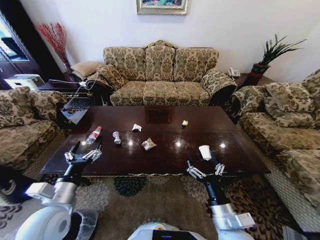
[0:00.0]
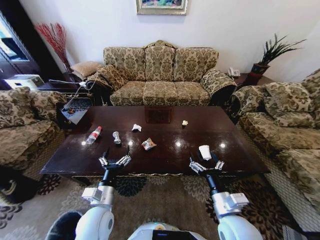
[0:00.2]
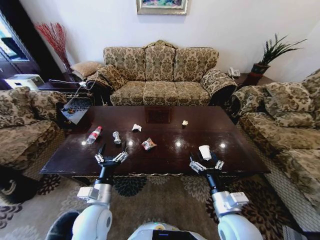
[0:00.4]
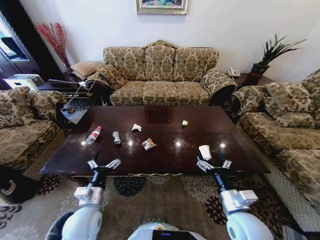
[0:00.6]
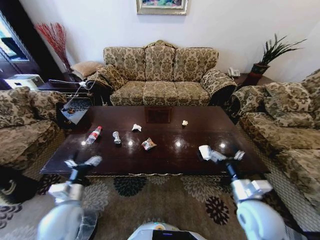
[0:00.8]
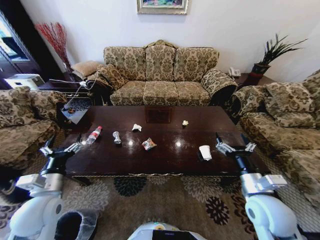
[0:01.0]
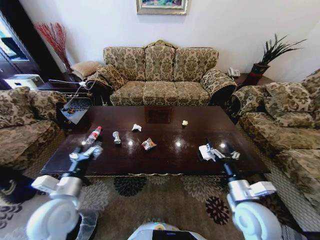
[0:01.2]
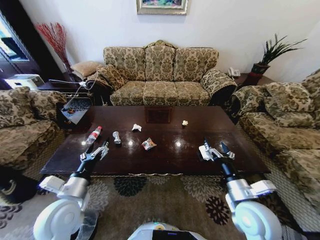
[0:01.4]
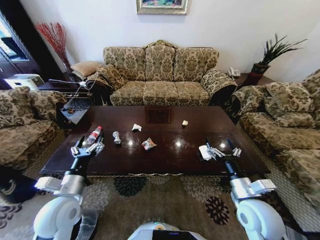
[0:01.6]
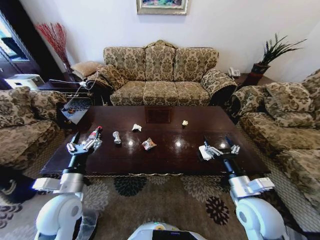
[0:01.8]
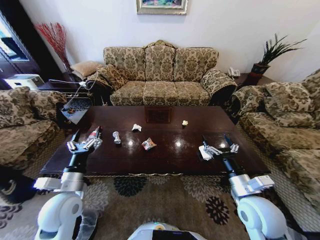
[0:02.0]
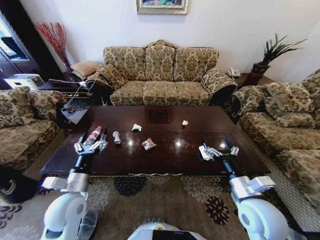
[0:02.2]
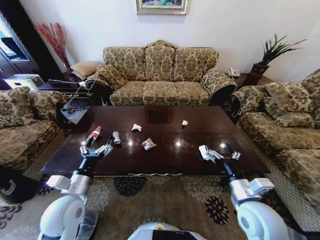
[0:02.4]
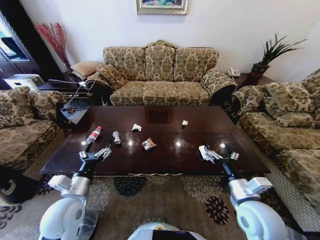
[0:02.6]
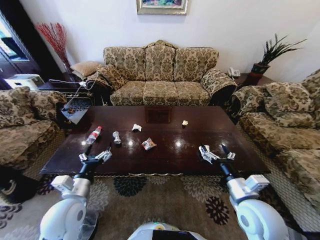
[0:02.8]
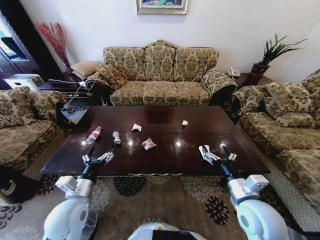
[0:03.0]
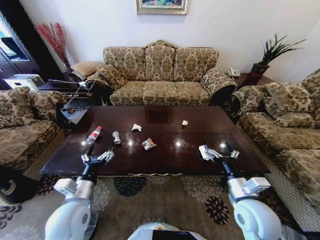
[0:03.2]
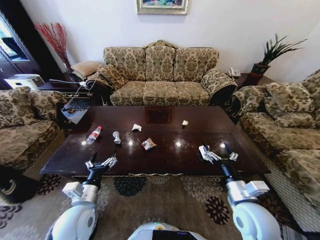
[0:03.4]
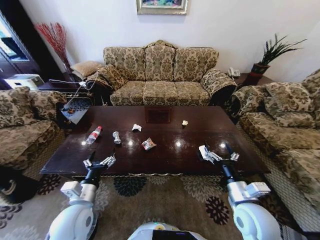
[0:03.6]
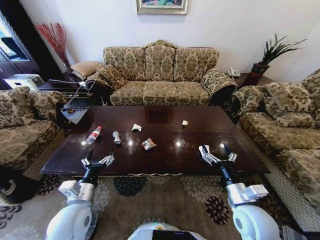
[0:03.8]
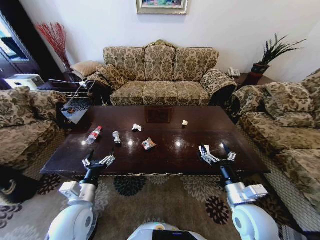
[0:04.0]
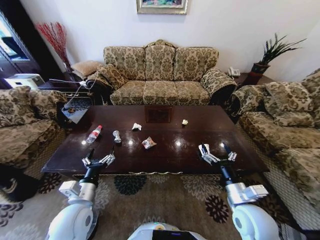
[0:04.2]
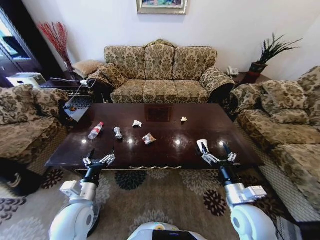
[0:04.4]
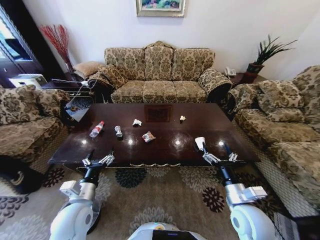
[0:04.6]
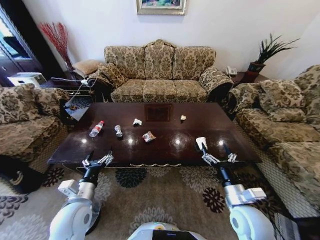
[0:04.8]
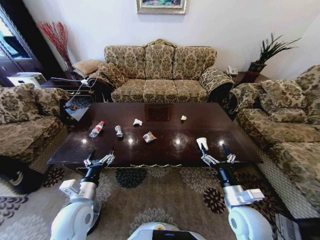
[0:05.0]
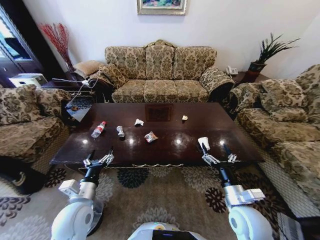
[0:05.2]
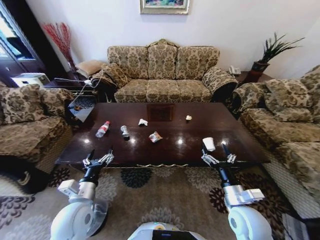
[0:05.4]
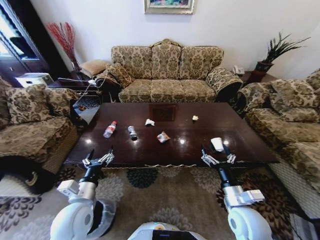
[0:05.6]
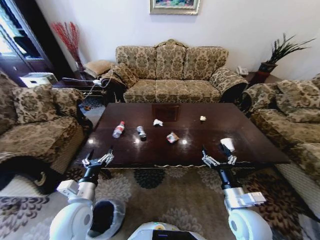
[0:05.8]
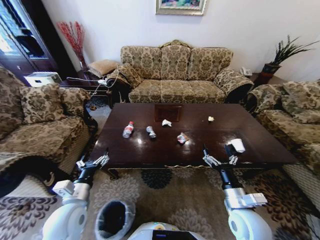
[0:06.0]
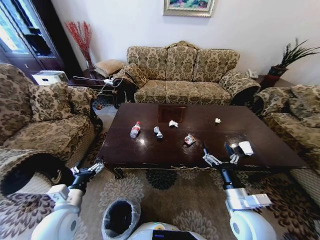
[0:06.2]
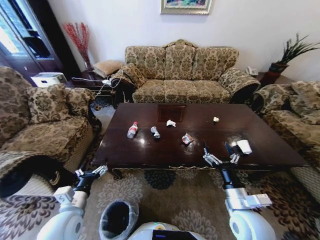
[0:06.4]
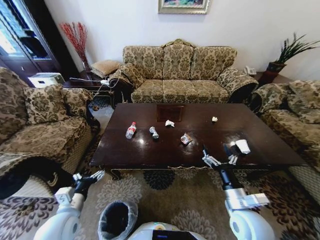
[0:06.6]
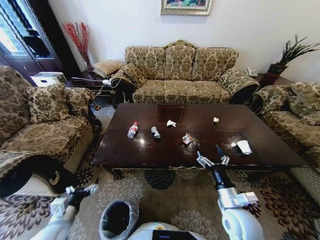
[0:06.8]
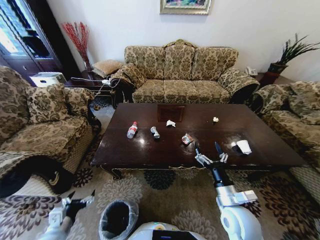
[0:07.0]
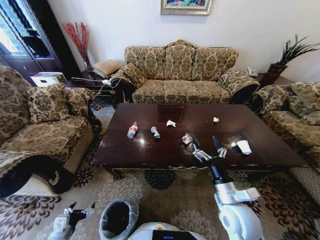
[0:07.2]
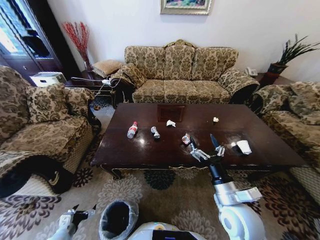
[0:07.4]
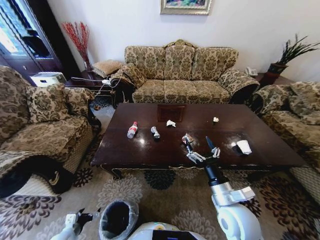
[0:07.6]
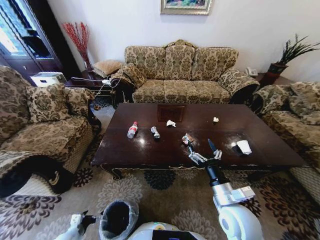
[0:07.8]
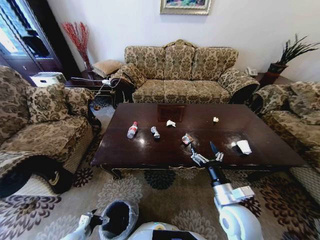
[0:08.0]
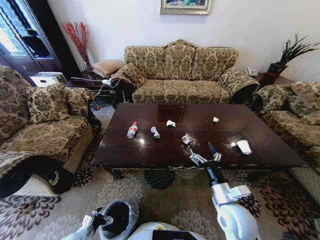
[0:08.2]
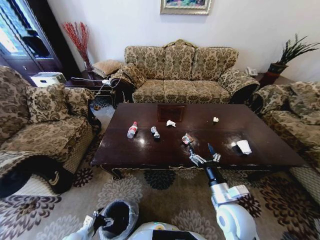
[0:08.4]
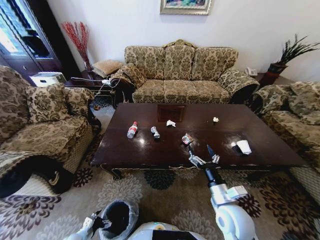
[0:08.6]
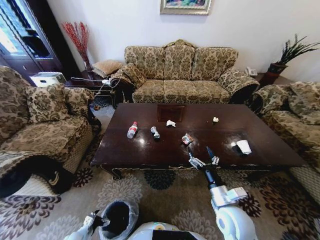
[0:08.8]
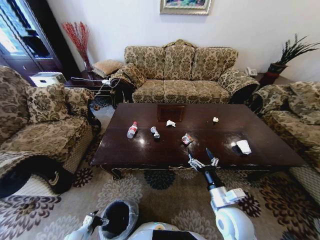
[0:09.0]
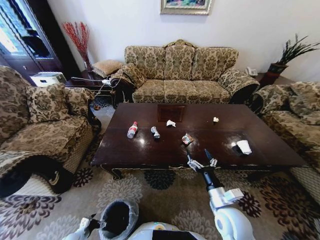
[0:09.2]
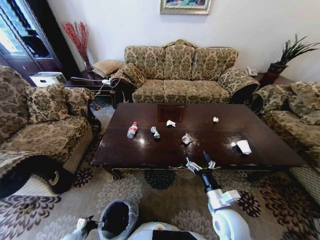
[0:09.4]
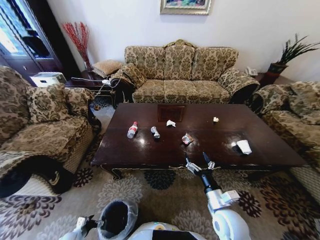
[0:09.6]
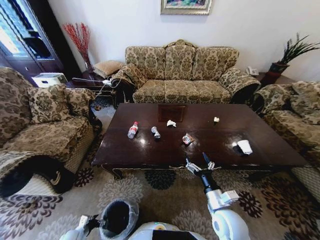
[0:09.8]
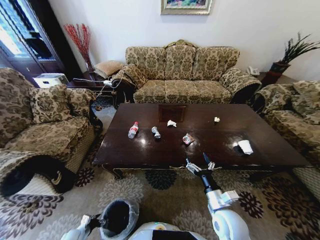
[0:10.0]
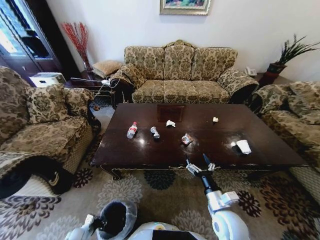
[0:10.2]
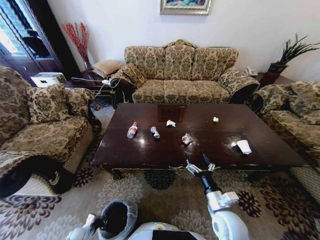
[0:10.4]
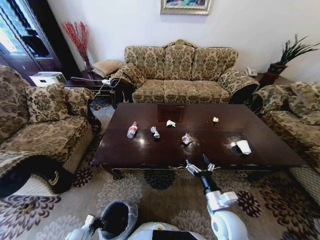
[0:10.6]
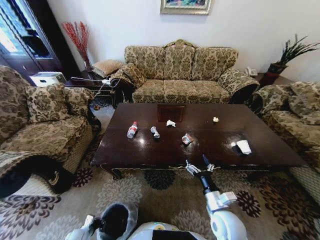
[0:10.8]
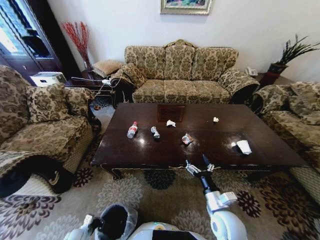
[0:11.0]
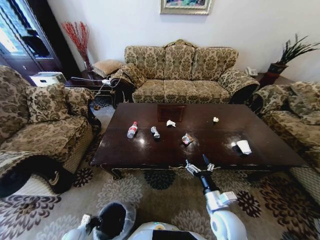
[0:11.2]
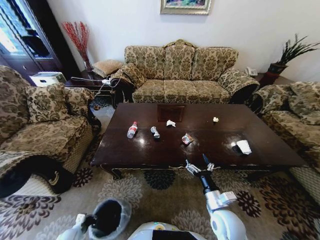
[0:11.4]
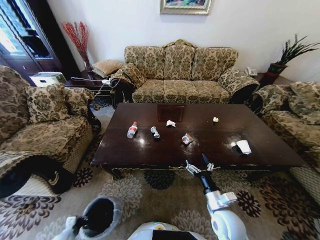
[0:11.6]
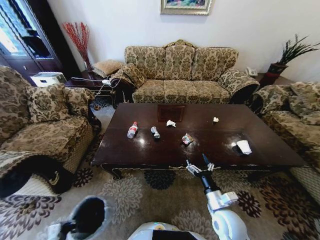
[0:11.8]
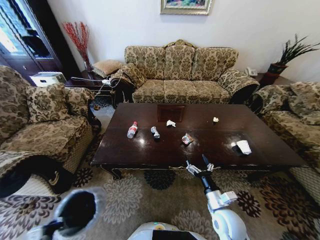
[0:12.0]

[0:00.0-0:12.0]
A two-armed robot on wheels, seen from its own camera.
Task of the whole recording: Move to the front of the table and place the trash on the table into the trash bin.
0:01.6 to 0:03.0: The grippers make only small movements.
0:06.0 to 0:07.6: The right gripper moves about 5 cm; the left gripper is displaced downward and to the left by roughly 25 cm.
0:07.6 to 0:09.0: The left gripper moves downward, roughly 15 cm.
0:09.0 to 0:10.4: The left gripper closes its fingers.
0:10.4 to 0:12.0: The left gripper is displaced upward and backward by approximately 20 cm.

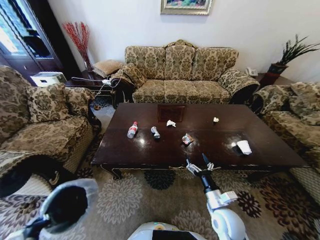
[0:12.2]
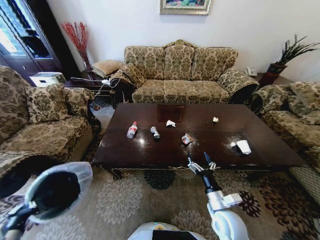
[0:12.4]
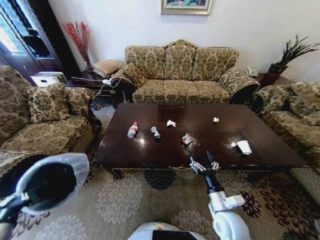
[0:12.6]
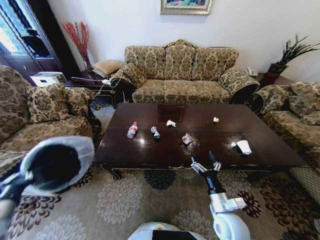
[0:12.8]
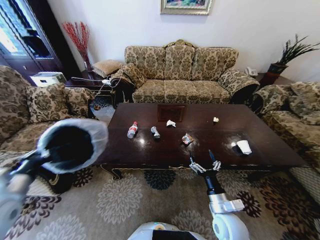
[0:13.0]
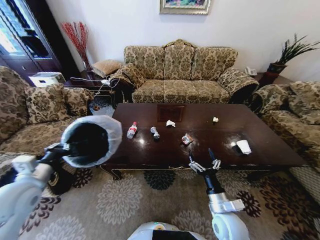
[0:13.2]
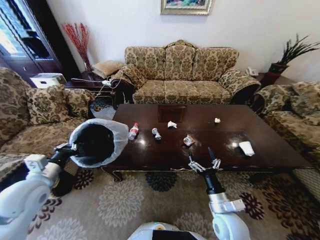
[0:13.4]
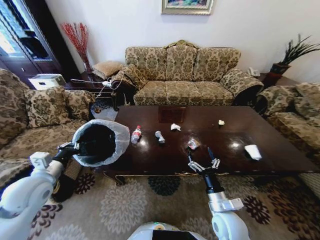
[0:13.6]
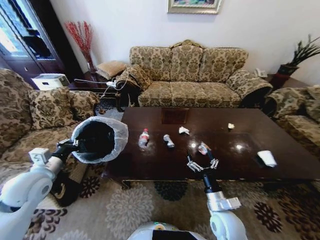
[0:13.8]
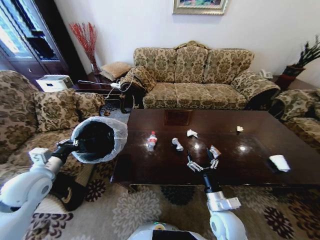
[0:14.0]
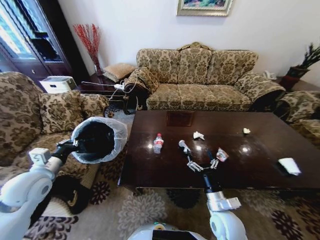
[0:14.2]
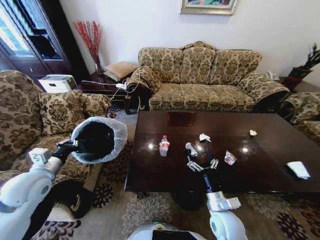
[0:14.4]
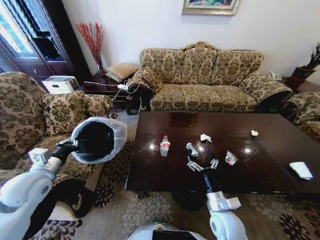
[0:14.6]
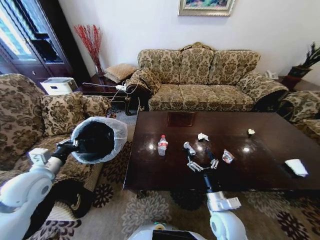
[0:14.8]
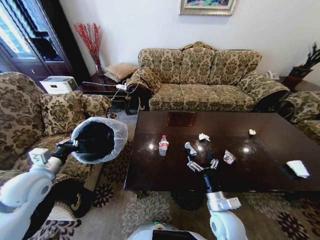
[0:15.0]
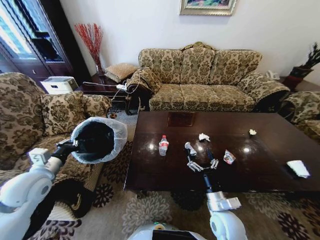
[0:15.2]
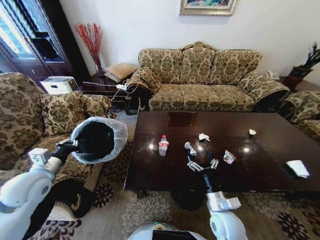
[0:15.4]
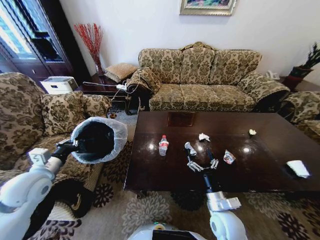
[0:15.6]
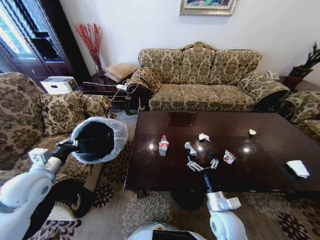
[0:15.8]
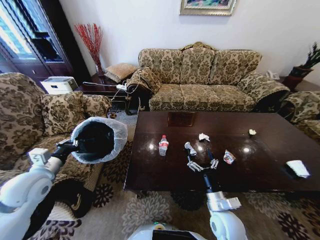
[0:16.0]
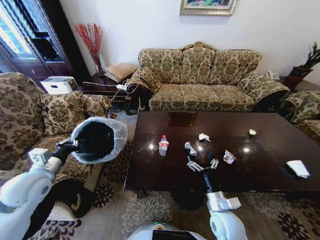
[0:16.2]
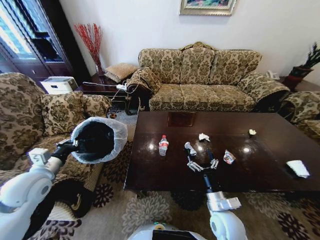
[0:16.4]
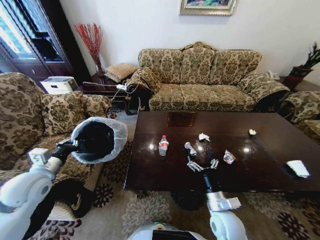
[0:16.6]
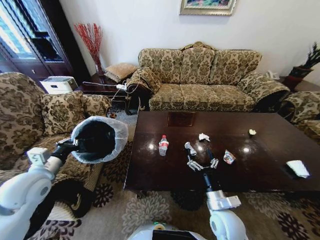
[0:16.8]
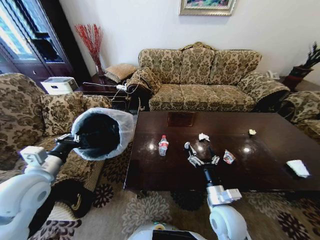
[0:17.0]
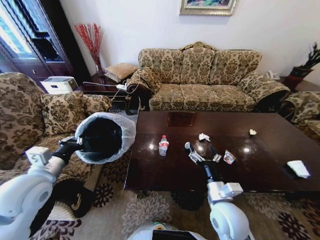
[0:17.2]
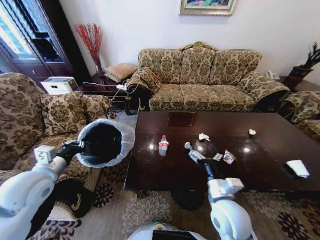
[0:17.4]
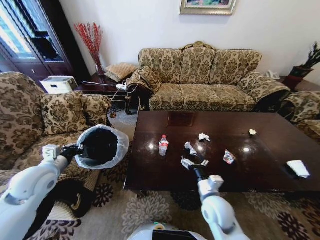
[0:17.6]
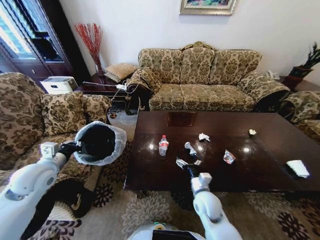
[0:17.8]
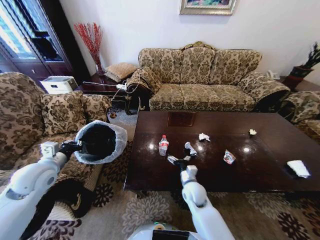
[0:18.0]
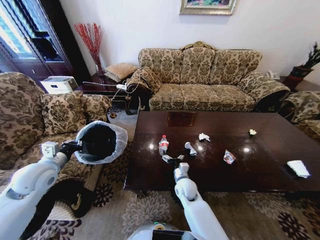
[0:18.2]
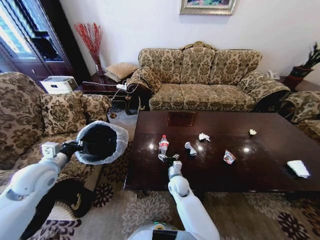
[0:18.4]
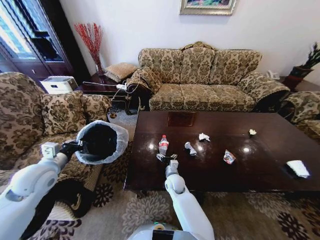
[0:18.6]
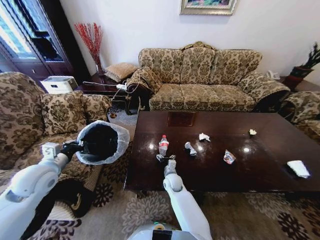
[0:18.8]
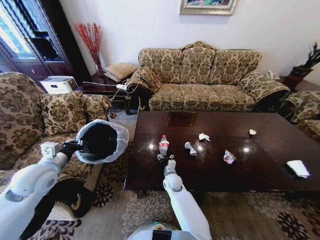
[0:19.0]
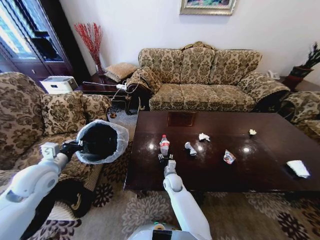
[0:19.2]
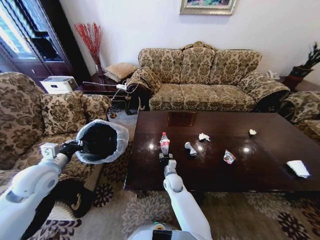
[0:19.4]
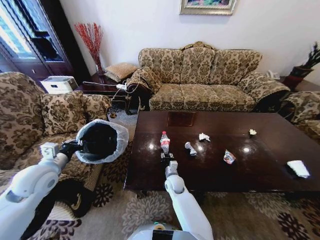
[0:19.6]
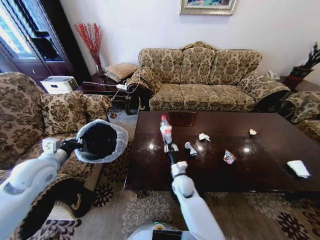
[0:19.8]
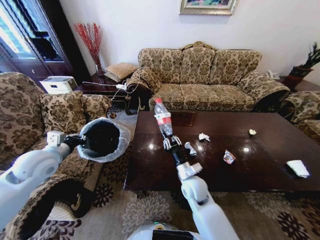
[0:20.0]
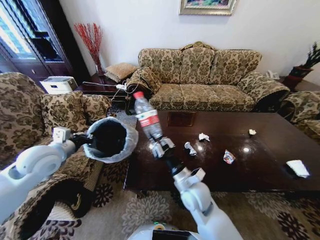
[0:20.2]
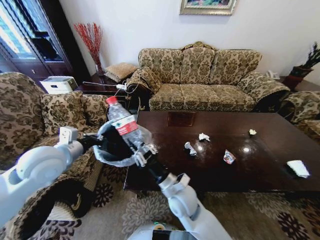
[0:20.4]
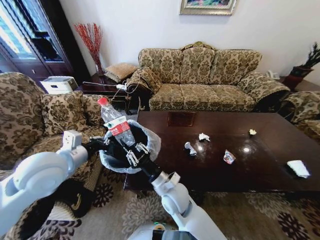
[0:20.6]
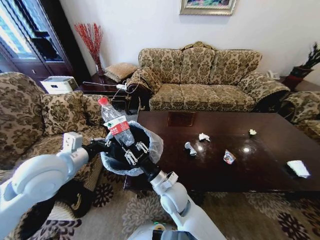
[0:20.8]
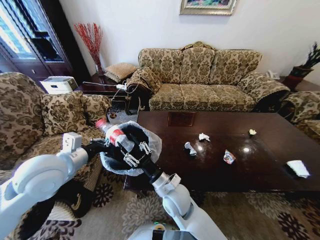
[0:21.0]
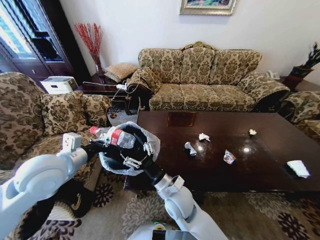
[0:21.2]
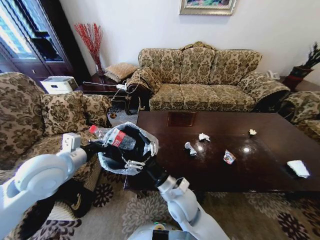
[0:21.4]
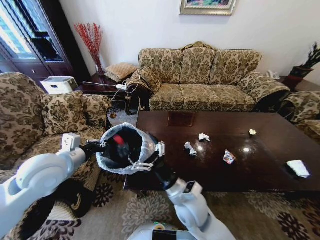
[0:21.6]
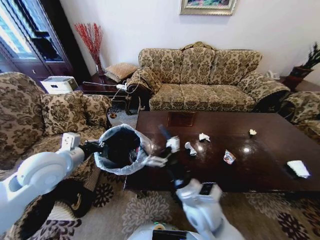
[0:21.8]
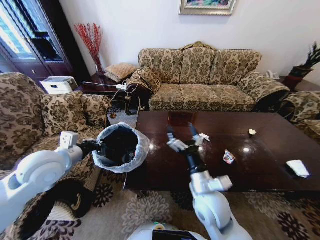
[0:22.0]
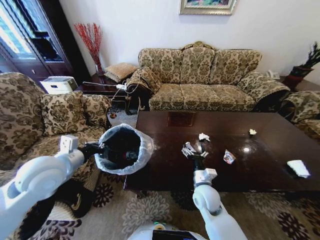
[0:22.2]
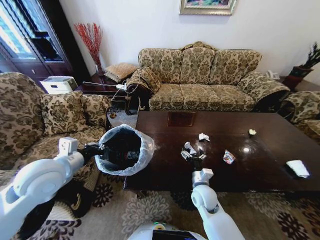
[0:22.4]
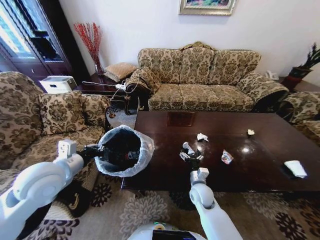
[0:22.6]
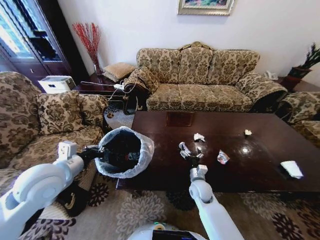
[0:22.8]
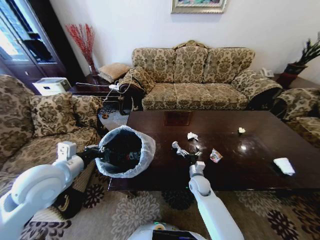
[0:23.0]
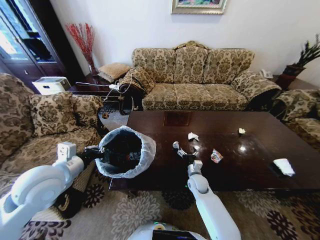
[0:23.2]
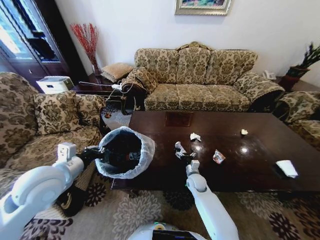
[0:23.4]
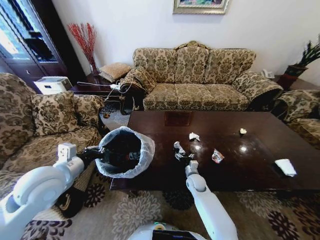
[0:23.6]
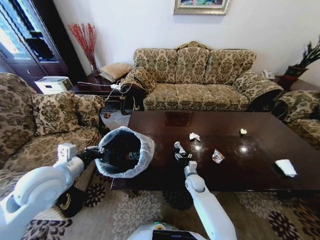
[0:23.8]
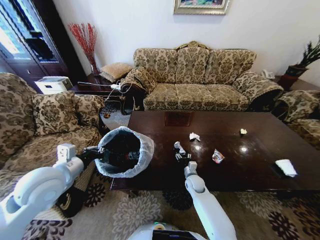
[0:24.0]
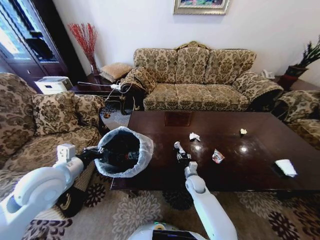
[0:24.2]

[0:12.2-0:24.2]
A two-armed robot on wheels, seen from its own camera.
Task of the whole recording: Move to the front of the table and place the trash on the table into the trash bin.
0:12.2 to 0:13.8: The left gripper moves upward and forward, about 30 cm.
0:15.2 to 0:16.6: The two grippers keep their place.
0:16.6 to 0:18.2: The right gripper is displaced forward, to the left and downward by about 20 cm.
0:18.2 to 0:19.8: The right gripper closes its fingers.
0:19.8 to 0:21.2: The left gripper heads to the right and upward, covering approximately 10 cm. The right gripper goes roughly 15 cm upward and backward, and opens up.
0:21.2 to 0:22.6: The right gripper heads to the right and downward, covering roughly 15 cm.
0:22.6 to 0:24.2: The right gripper heads downward and forward, covering some 10 cm, and closes its fingers.
